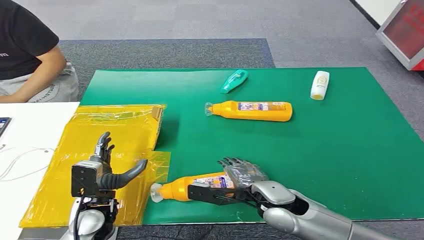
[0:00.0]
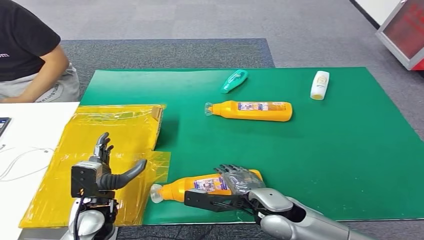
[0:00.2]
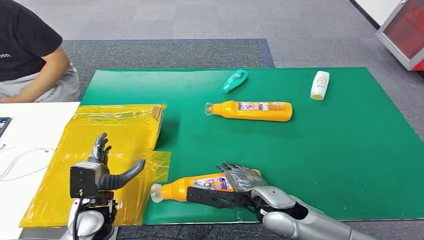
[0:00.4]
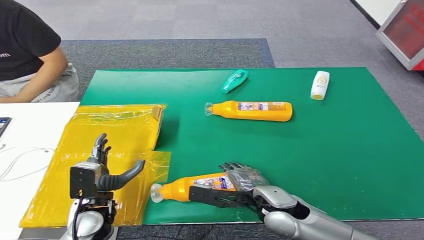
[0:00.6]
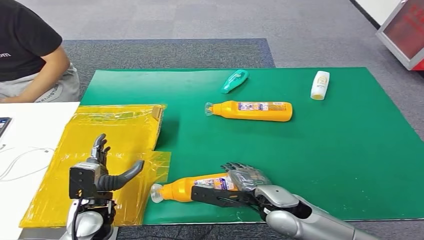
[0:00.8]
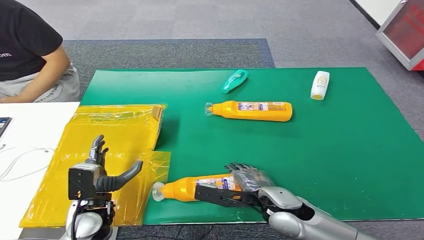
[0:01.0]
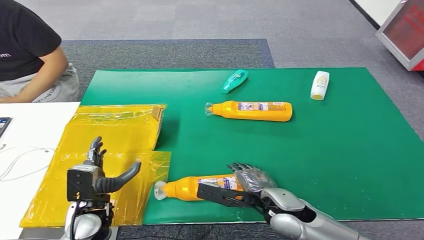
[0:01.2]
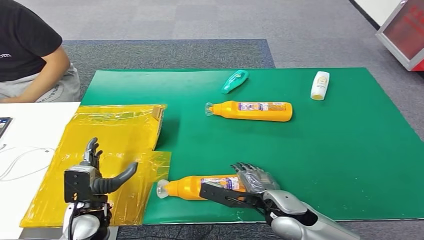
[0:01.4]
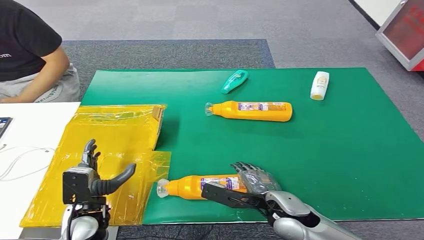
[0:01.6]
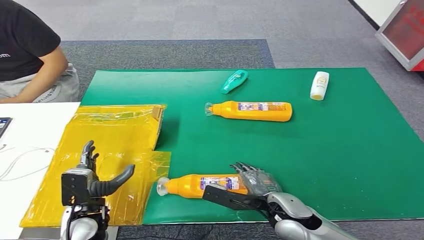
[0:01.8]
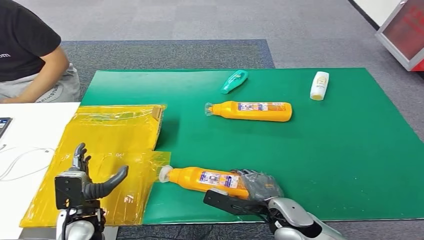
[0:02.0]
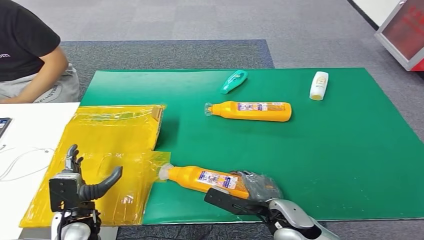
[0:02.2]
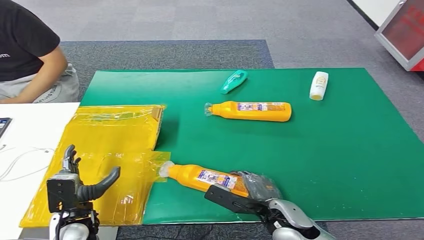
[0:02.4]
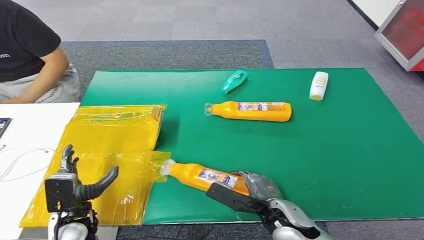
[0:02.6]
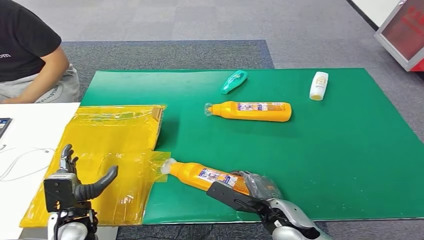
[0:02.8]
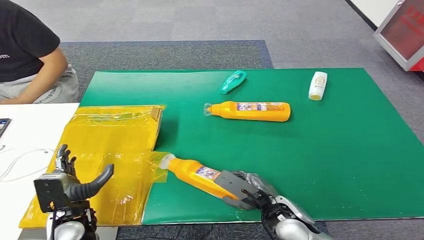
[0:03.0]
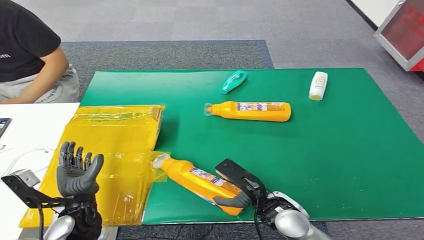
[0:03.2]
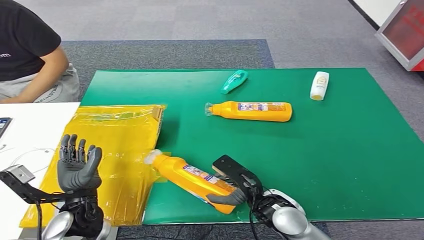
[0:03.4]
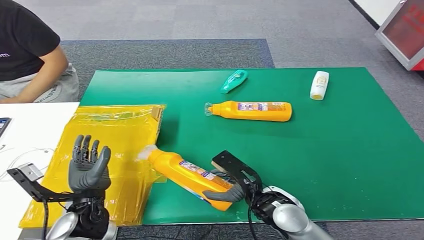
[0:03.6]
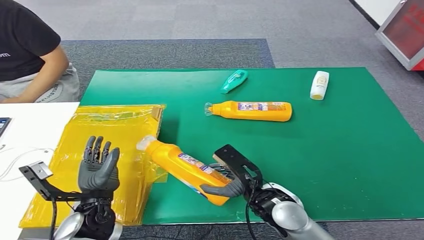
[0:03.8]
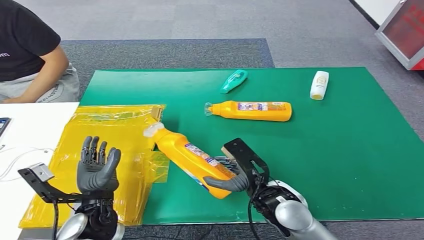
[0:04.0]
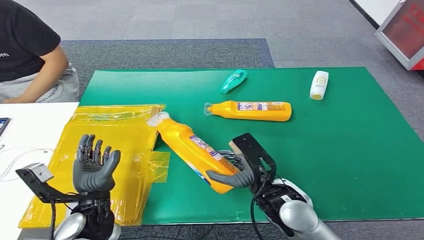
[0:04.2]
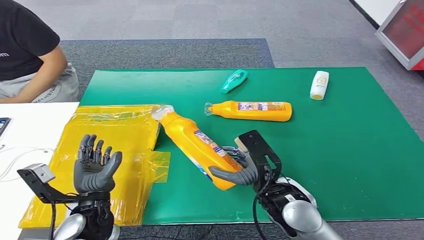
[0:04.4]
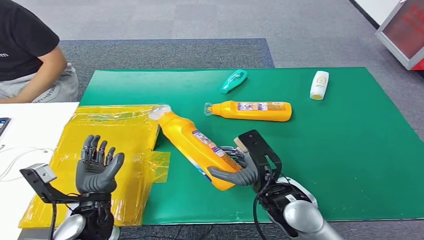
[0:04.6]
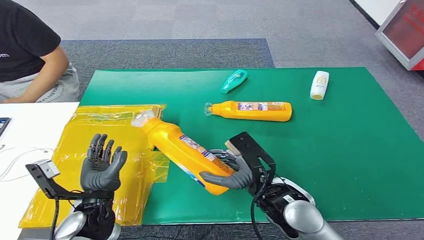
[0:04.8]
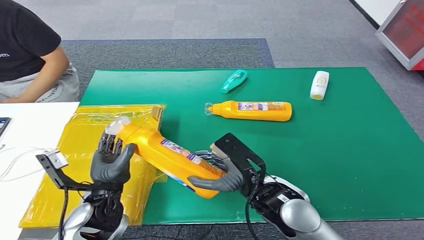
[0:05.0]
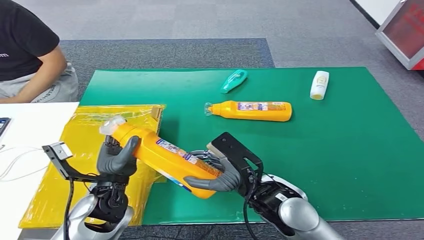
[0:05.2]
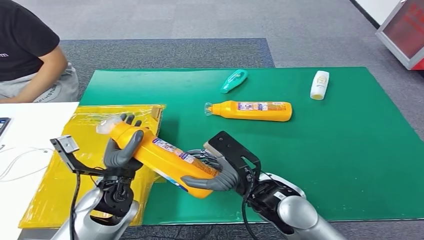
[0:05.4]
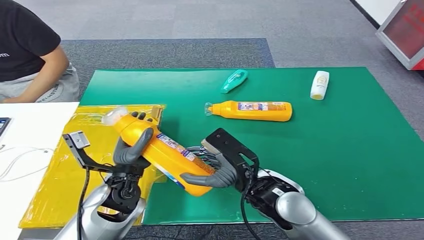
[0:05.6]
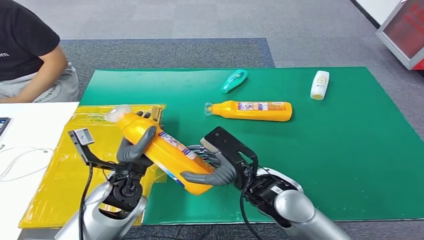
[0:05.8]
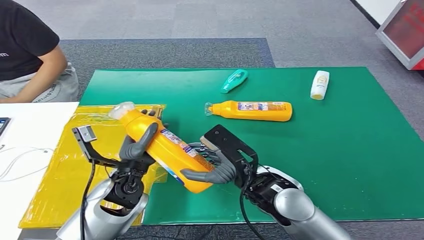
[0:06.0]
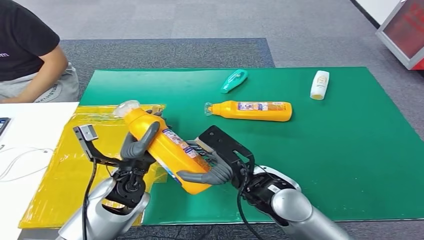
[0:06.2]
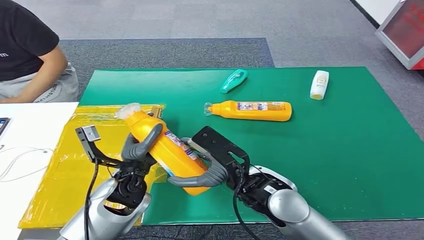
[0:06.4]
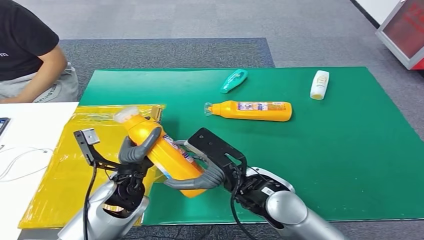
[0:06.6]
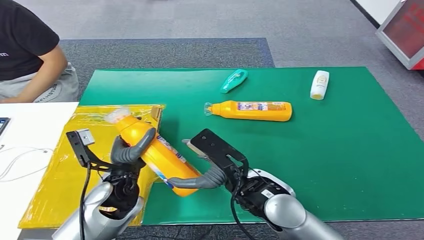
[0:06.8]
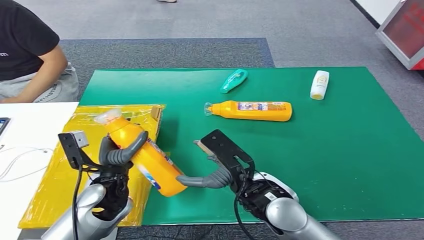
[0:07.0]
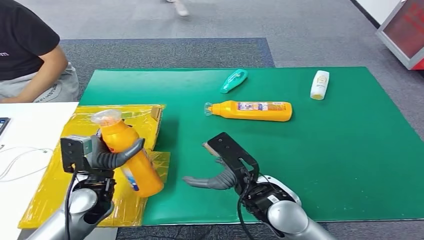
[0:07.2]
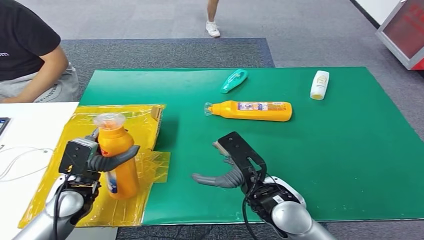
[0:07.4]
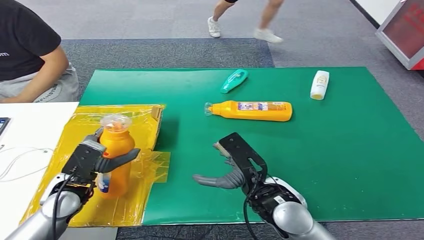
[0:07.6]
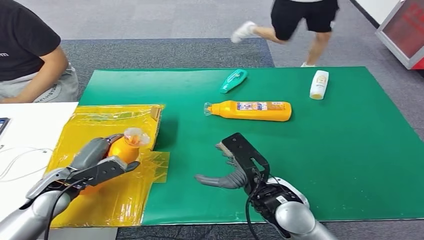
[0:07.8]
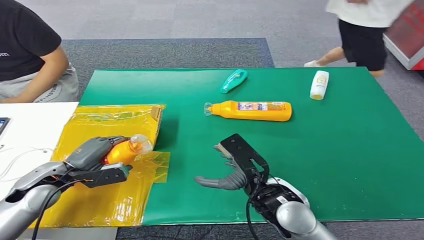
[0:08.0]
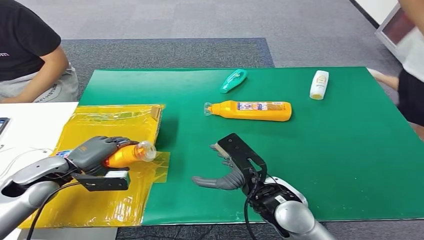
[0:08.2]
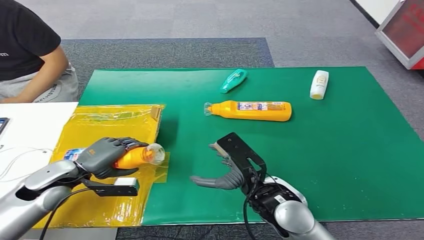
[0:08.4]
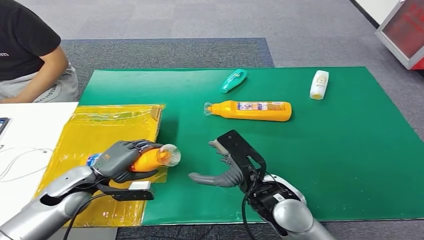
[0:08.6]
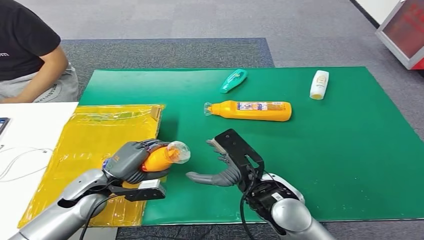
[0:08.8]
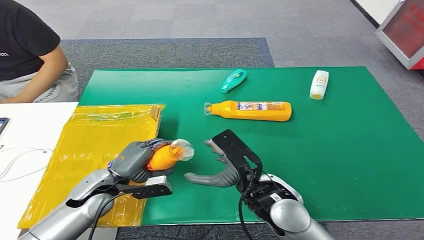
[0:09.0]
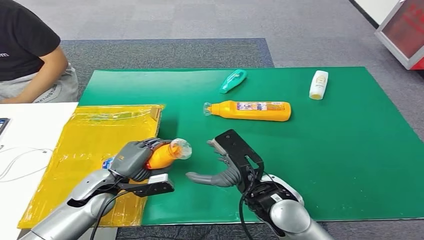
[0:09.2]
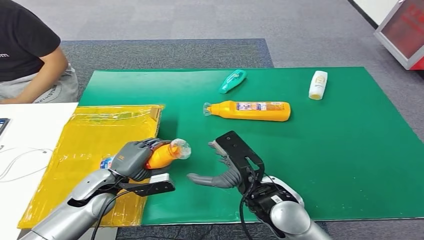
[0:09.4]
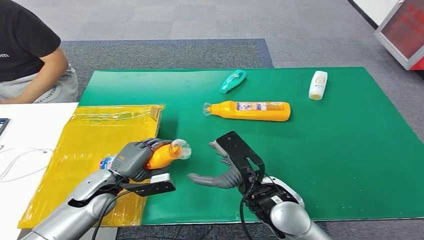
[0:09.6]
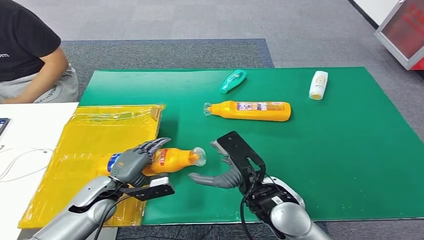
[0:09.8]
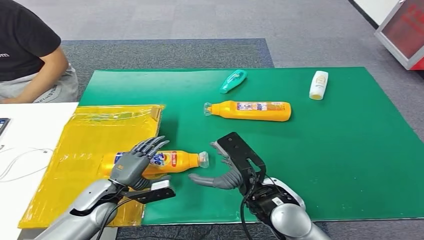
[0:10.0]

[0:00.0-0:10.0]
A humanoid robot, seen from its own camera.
Step, 0:00.0 to 0:05.4: Pick up the bottle from the table.
Step, 0:05.6 to 0:10.0: Turn the bottle to the front side.
0:01.4 to 0:02.8: The hands make only small movements.
0:02.8 to 0:04.2: The right hand goes about 10 cm upward. Meanwhile the left hand travels upward by approximately 5 cm.
0:04.2 to 0:05.8: The left hand is displaced forward and to the right by roughly 10 cm.
0:05.8 to 0:07.2: The left hand travels to the left by approximately 5 cm.
0:07.2 to 0:08.6: The left hand heads to the left, covering roughly 5 cm.
0:08.6 to 0:10.0: The left hand shifts roughly 5 cm downward.

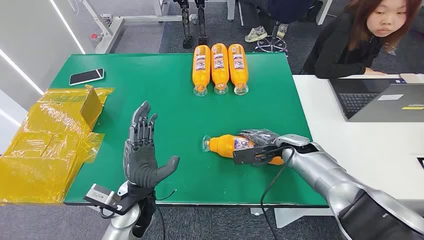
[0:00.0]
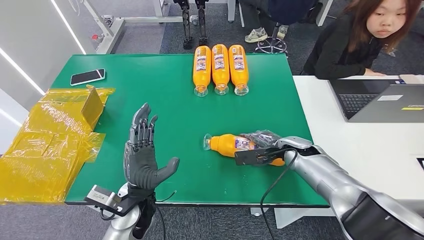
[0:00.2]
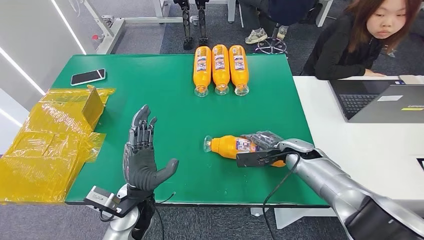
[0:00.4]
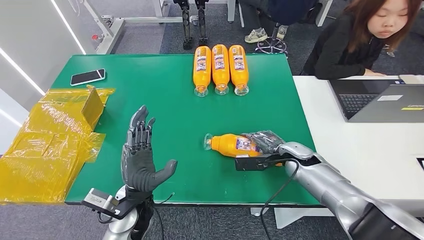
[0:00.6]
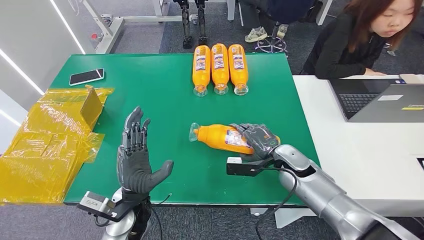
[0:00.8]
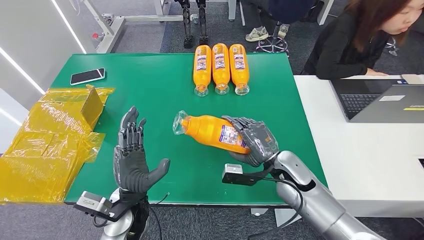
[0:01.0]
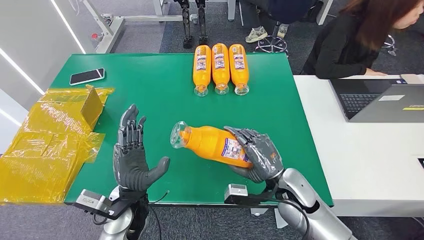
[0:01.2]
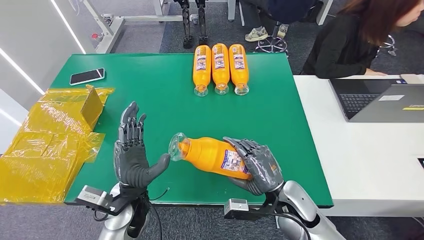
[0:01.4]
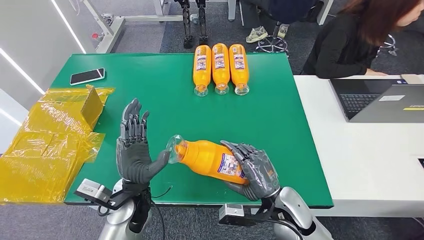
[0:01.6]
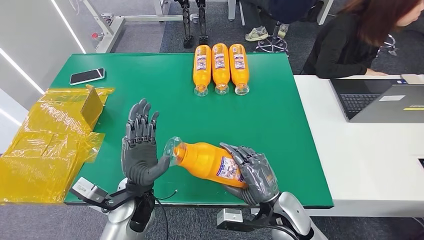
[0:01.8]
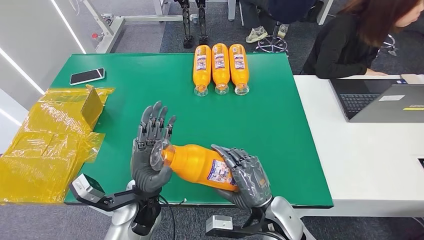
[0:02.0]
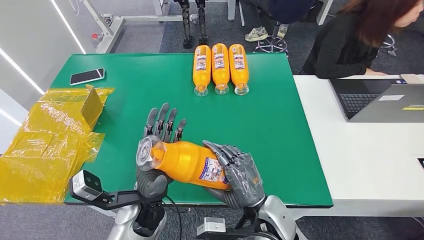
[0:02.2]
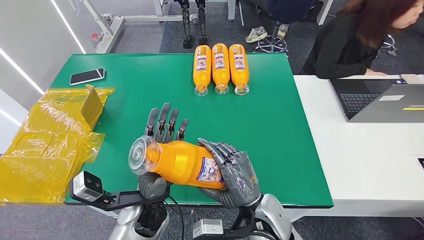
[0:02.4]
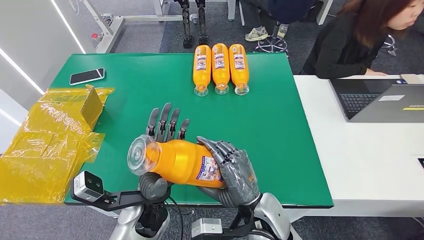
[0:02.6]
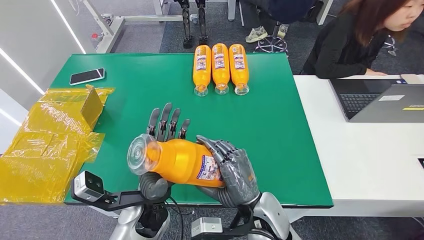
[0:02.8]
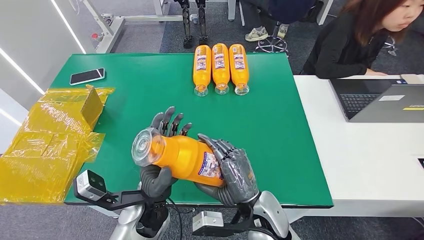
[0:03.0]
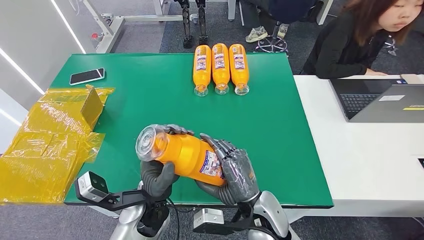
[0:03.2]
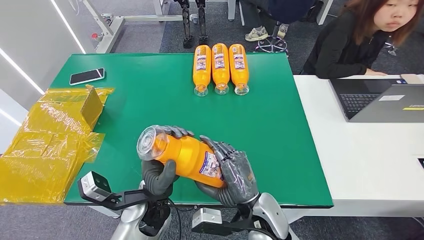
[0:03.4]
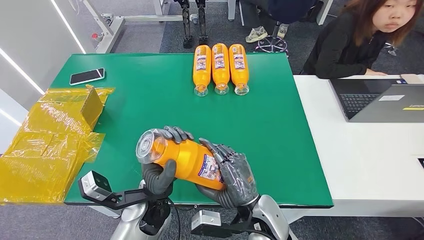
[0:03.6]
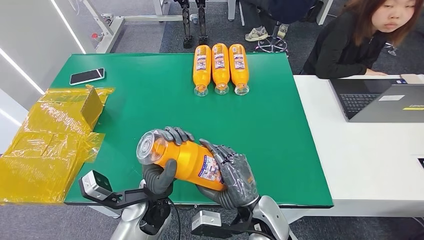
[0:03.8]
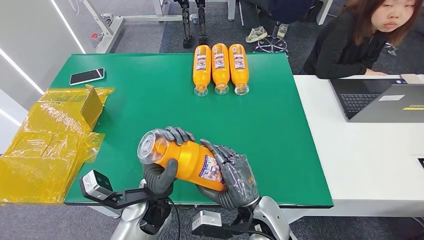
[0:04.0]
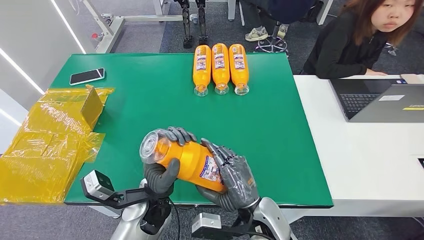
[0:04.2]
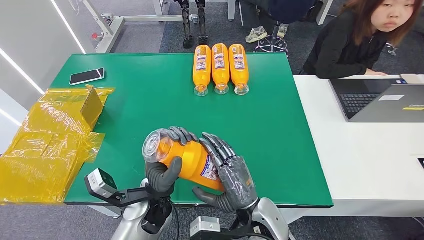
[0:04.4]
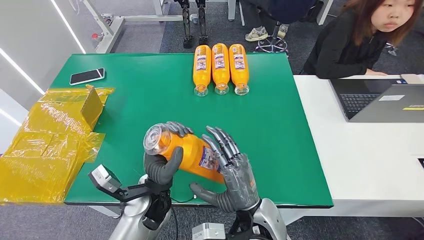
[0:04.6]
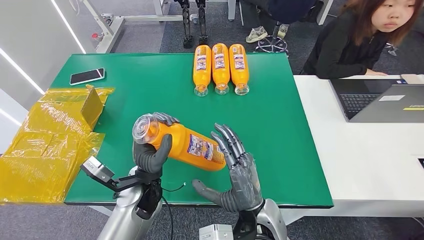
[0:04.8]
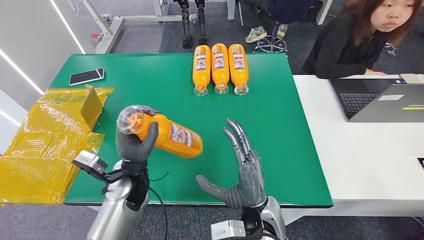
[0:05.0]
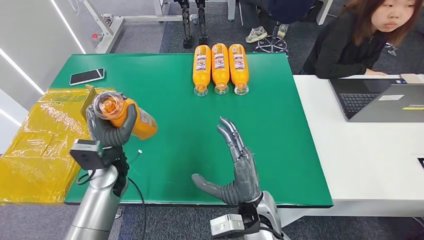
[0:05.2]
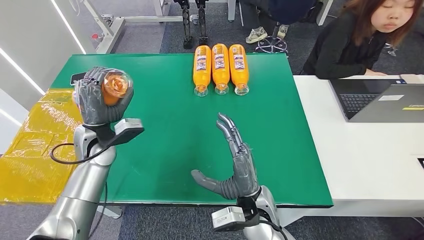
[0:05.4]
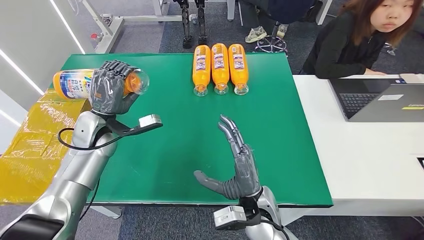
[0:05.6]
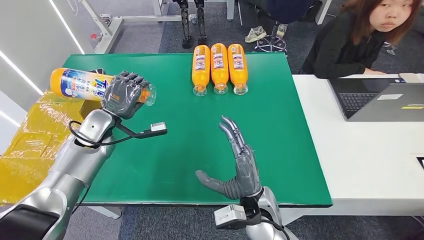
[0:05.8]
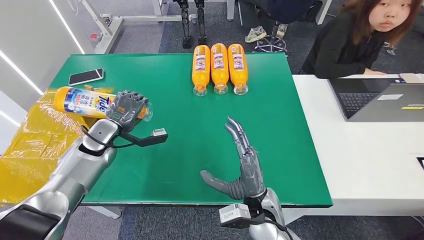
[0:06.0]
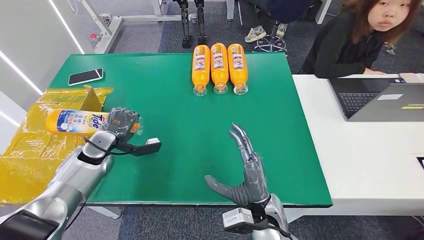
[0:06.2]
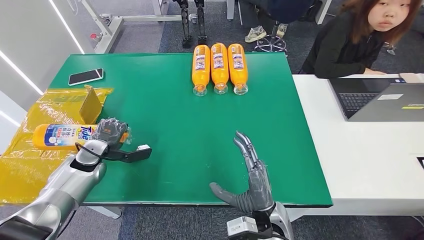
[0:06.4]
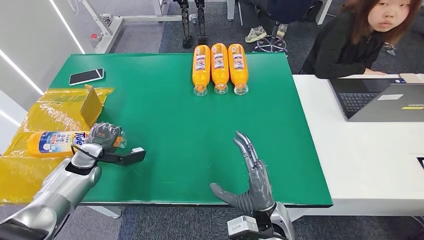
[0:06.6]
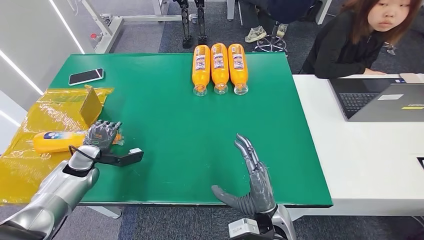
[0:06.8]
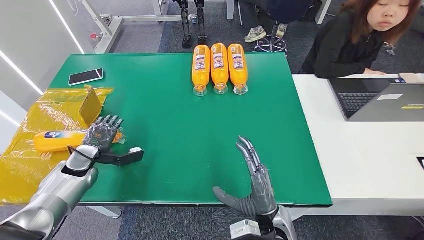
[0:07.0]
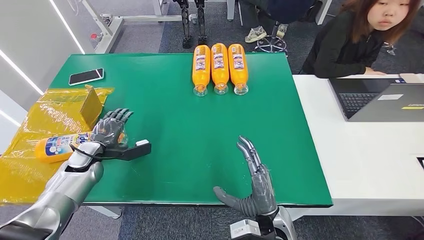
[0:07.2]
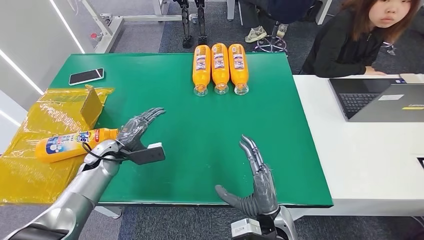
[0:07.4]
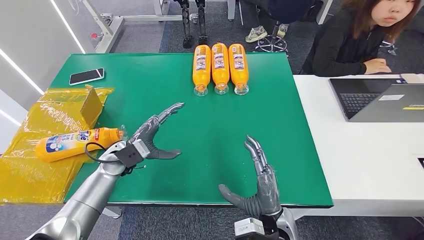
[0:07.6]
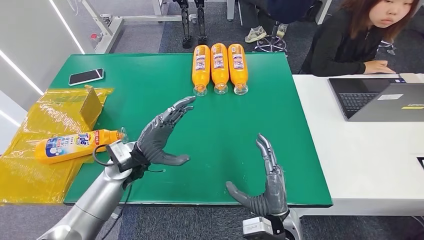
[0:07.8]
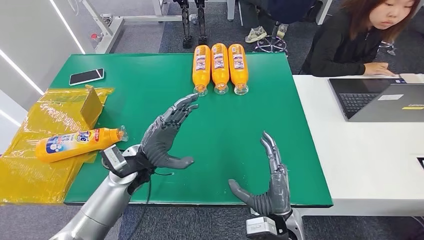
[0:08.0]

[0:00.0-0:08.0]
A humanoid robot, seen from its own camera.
Step, 0:00.0 to 0:02.2: Pick up the bottle from the table.
Step, 0:02.6 to 0:08.0: Turn the bottle to the front side.
0:01.6 to 0:03.2: The right hand travels to the left by approximately 10 cm, while the left hand shifts by roughly 5 cm.
0:03.2 to 0:04.8: The left hand shifts by some 5 cm.
0:06.4 to 0:08.0: The left hand goes roughly 20 cm to the right.
